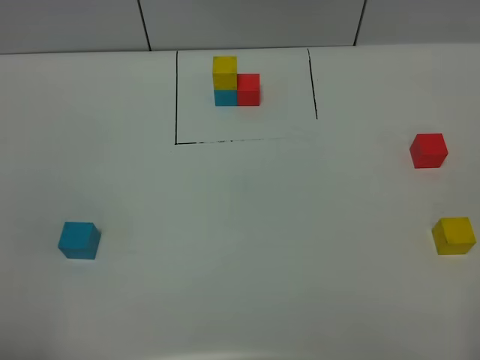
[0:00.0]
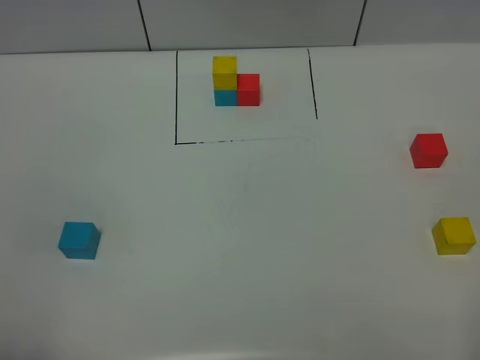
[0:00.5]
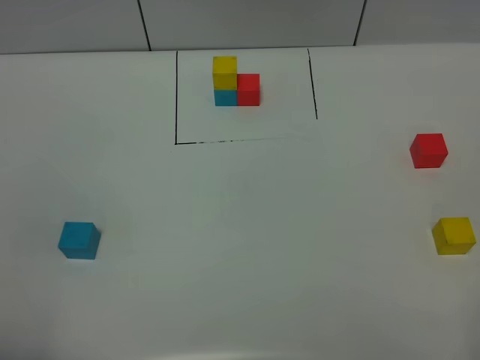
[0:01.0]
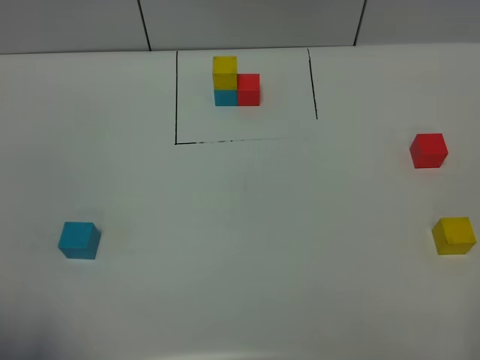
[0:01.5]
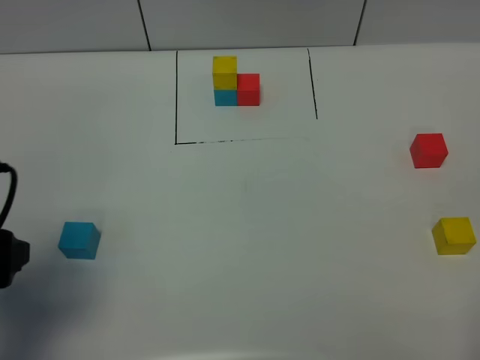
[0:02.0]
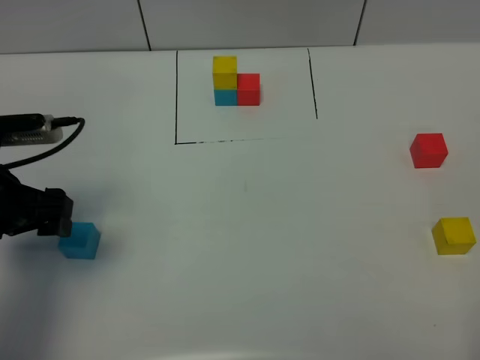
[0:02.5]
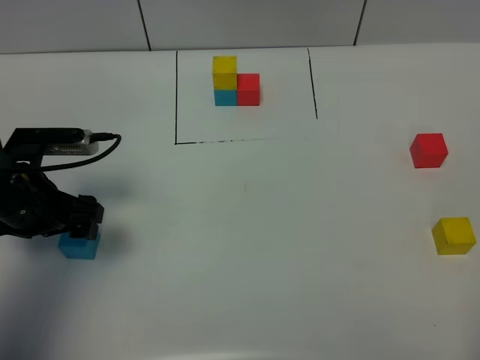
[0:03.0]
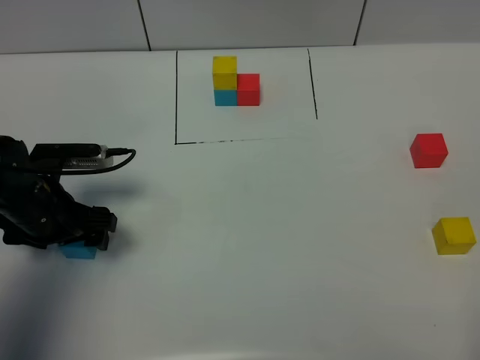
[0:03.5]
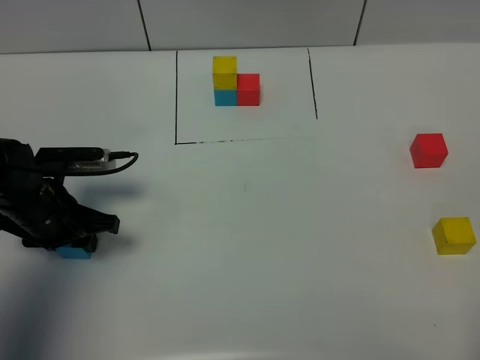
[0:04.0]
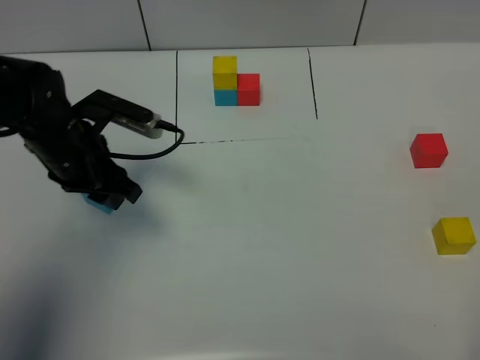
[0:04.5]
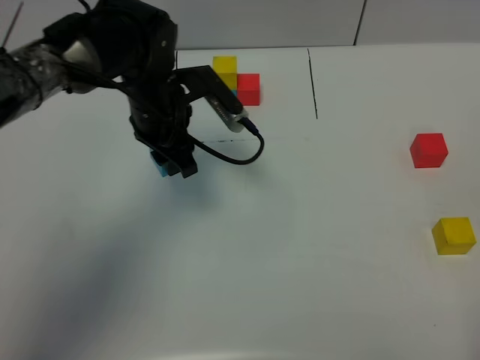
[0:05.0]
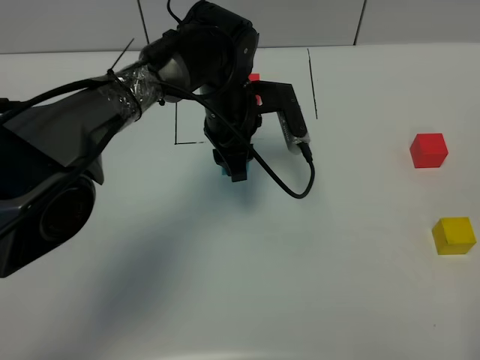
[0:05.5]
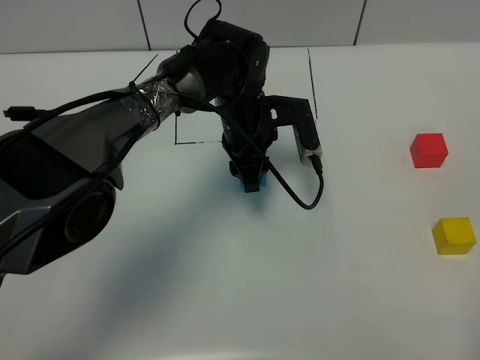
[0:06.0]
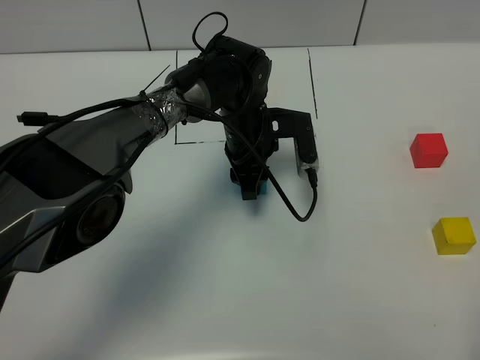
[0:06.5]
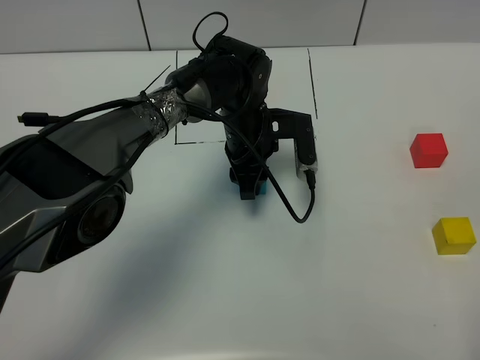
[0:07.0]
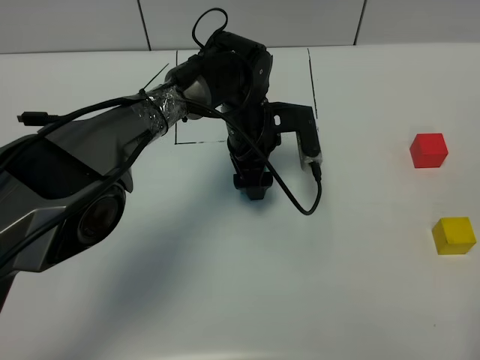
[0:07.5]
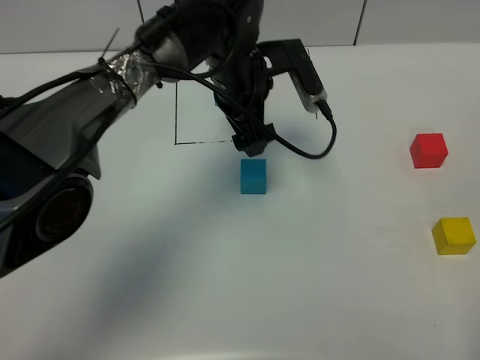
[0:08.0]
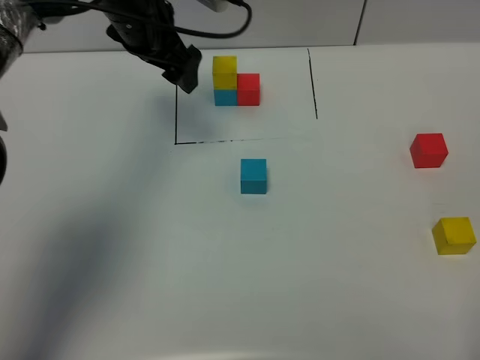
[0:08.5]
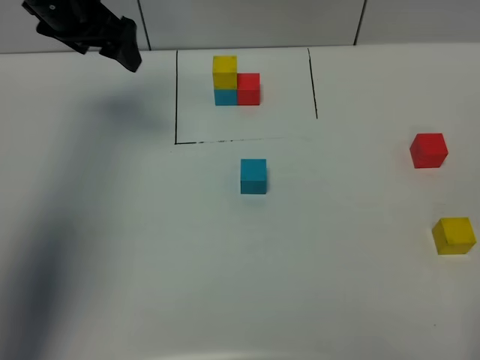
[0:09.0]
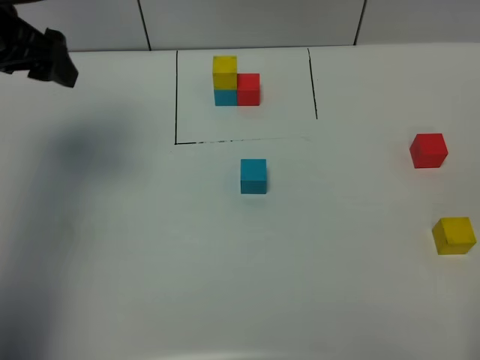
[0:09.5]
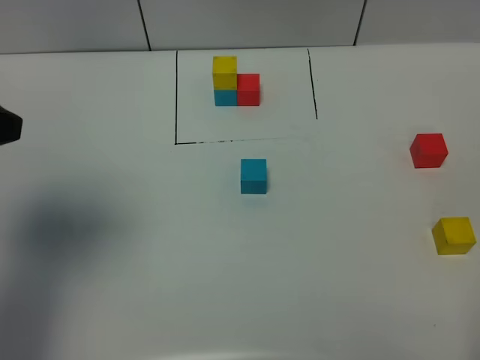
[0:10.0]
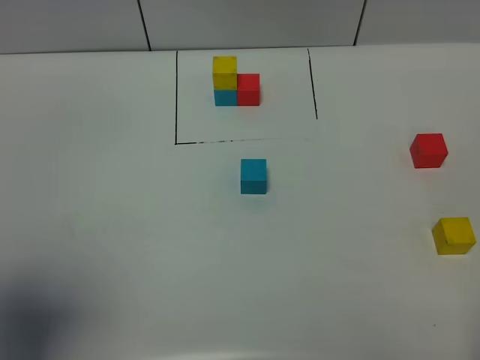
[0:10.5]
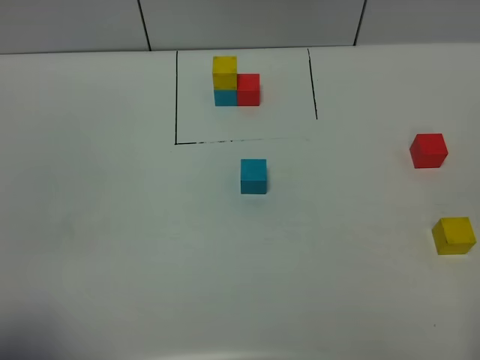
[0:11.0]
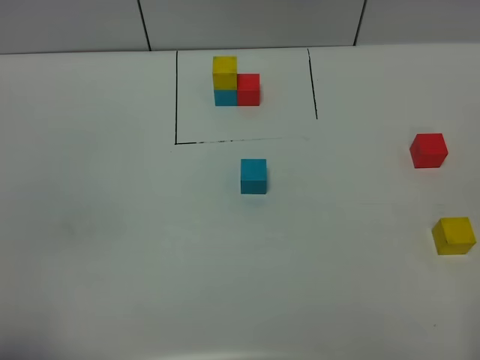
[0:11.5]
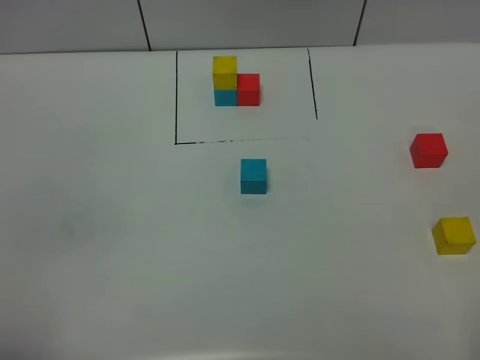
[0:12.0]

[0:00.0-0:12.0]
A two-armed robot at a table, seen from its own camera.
Task of the whole recording: According to the building block template in front, assemble the scattered blocks together.
Step, 0:00.0 to 0:07.5: Put the blue build block in the center of the table.
0:00.0 to 0:02.0: The left gripper heads forward, covering about 15 cm.
0:02.0 to 0:04.0: The left gripper heads downward and forward, covering approximately 20 cm, and closes up.
0:04.0 to 0:06.0: The left gripper moves to the right and forward, approximately 30 cm.
0:06.0 to 0:08.0: The left gripper heads upward, covering about 5 cm, and opens.
0:08.0 to 0:10.0: The left gripper goes some 35 cm to the left, backward and upward.
0:10.0 to 0:12.0: The left gripper travels backward by roughly 20 cm.

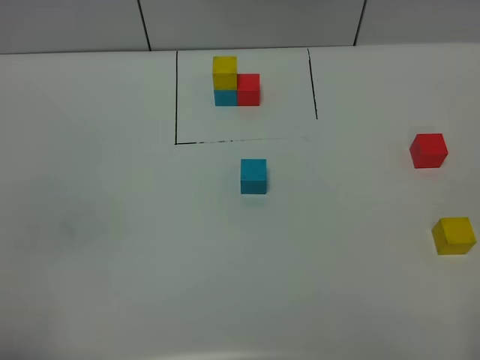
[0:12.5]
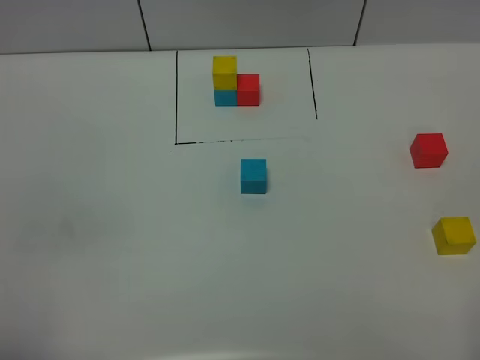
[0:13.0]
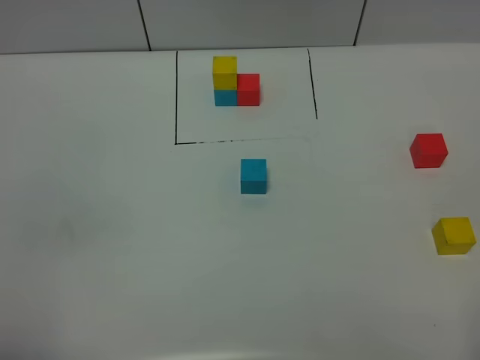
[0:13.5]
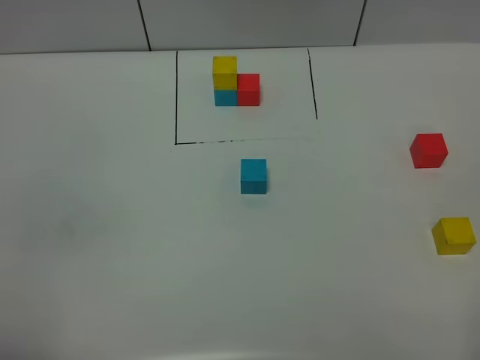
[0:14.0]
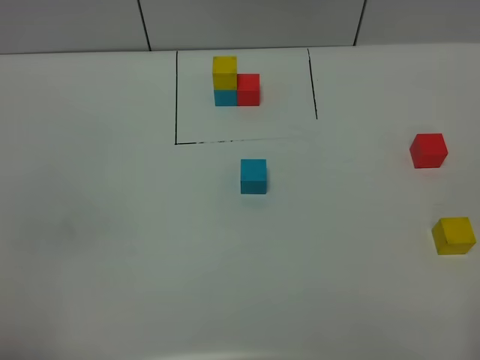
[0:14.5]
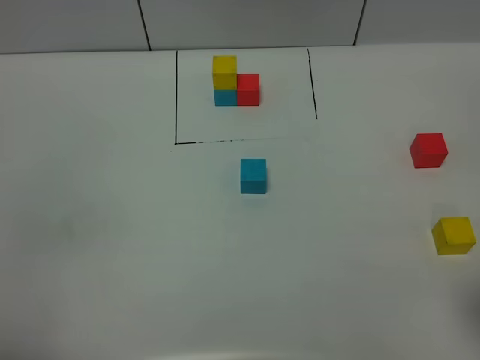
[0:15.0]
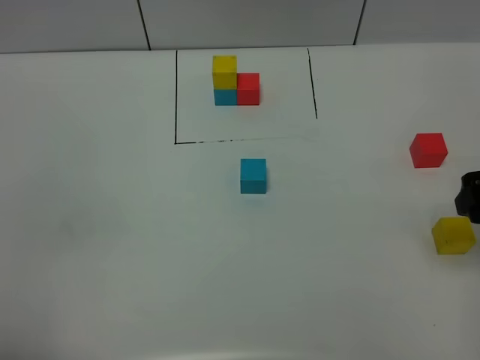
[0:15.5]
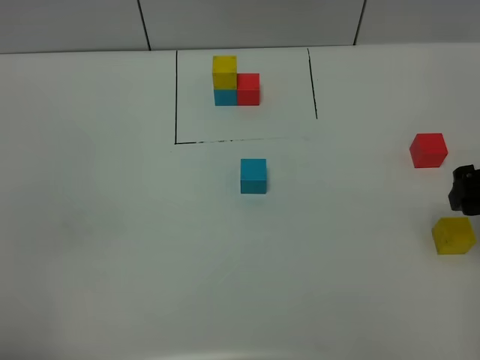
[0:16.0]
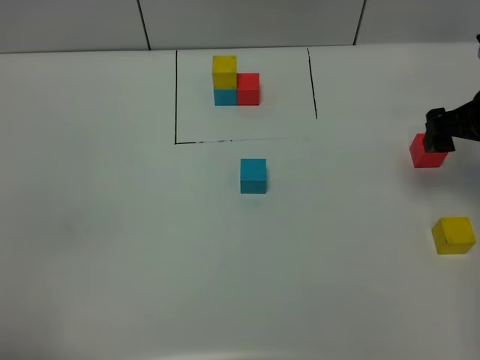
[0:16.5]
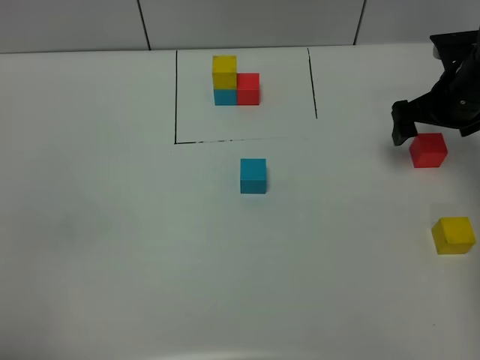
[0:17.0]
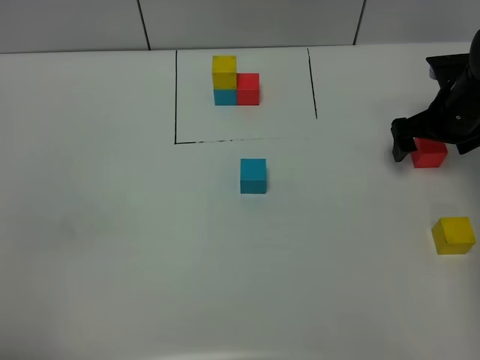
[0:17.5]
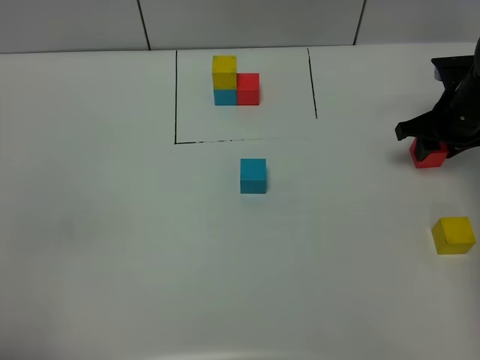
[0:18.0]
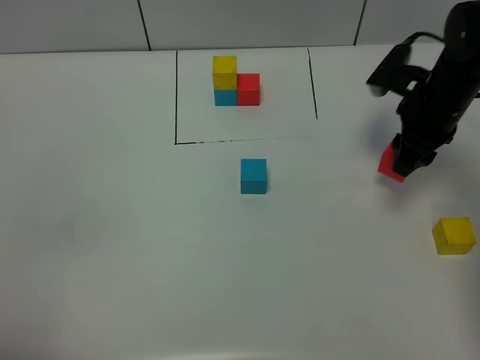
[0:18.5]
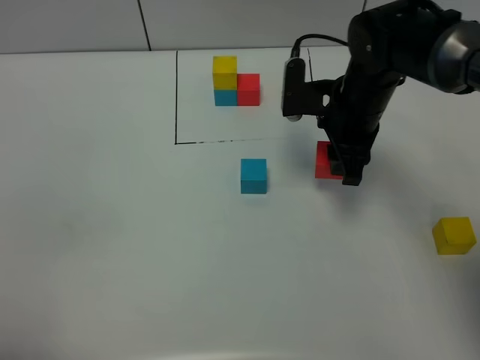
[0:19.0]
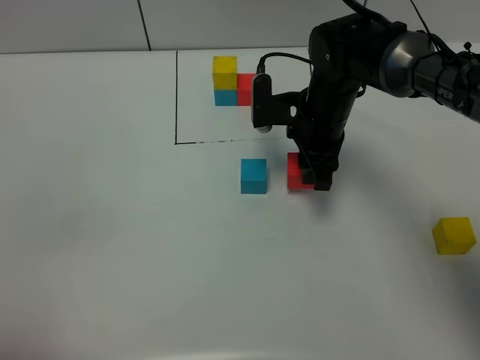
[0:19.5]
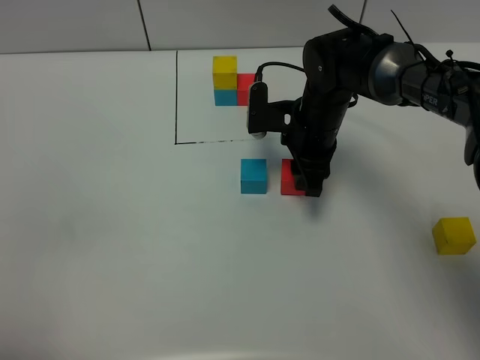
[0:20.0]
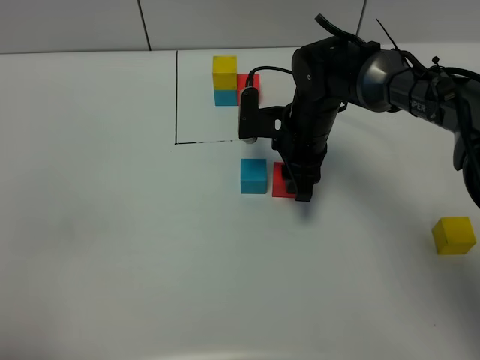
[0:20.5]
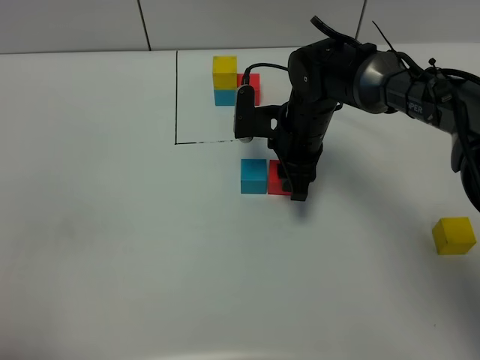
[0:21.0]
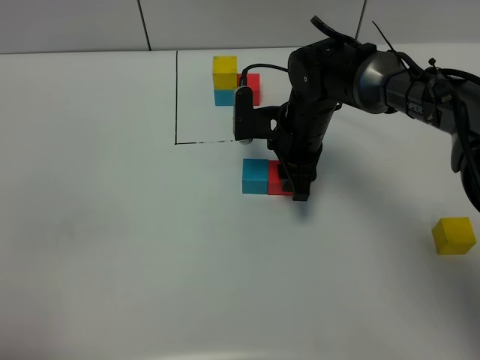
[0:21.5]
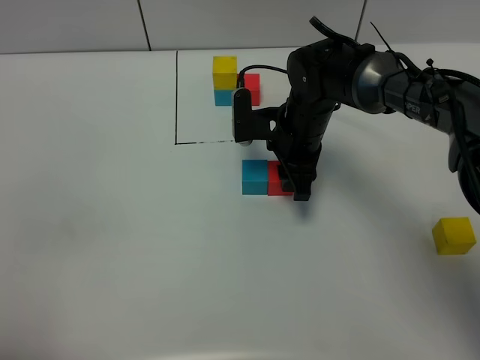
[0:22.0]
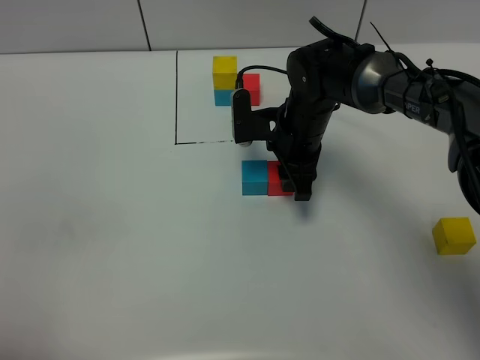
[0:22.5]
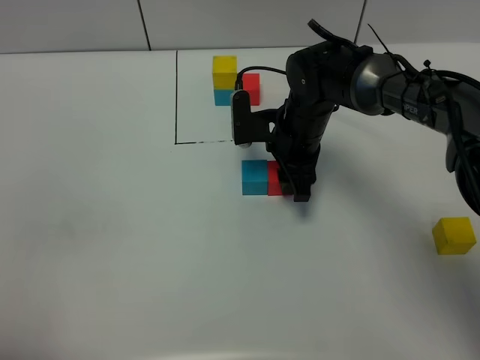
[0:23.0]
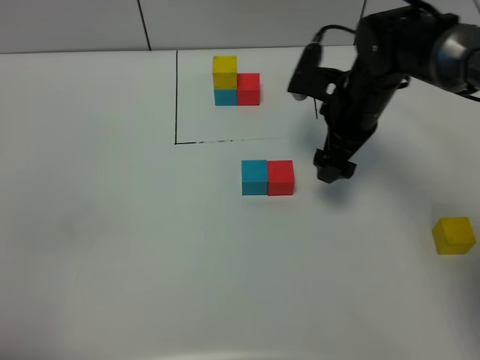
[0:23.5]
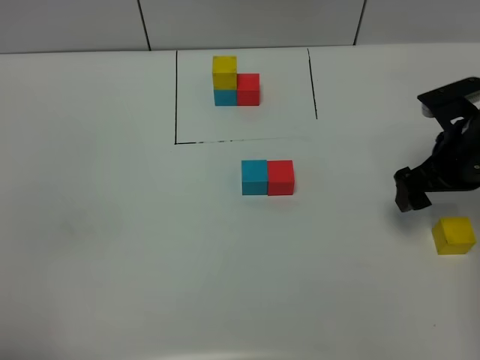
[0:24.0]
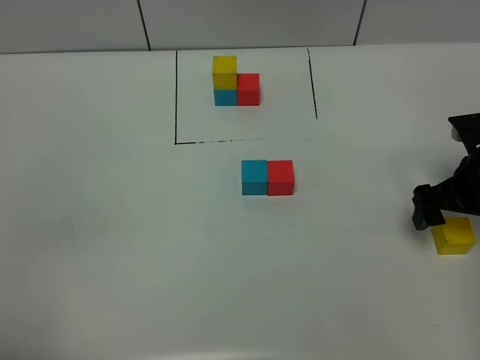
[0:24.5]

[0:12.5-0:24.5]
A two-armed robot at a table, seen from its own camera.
Task of the whole recording: According to the building block template in front, assemble the scattered blocks together.
Step, 0:12.5 to 0:23.0: Put the red build block on the right of the blue build block.
0:12.5 to 0:14.5: Both grippers stay put.
0:14.5 to 0:16.5: The right gripper travels forward by some 35 cm.
0:16.5 to 0:18.5: The right gripper shifts about 5 cm to the left, and closes.
0:18.5 to 0:20.5: The right gripper heads to the left, covering about 15 cm.
0:20.5 to 0:22.5: The grippers make only small movements.
0:22.5 to 0:24.5: The right gripper goes approximately 25 cm to the right and backward, and opens.

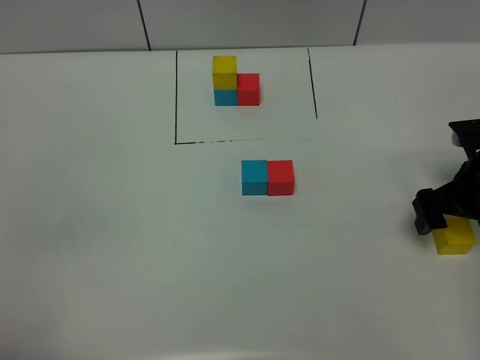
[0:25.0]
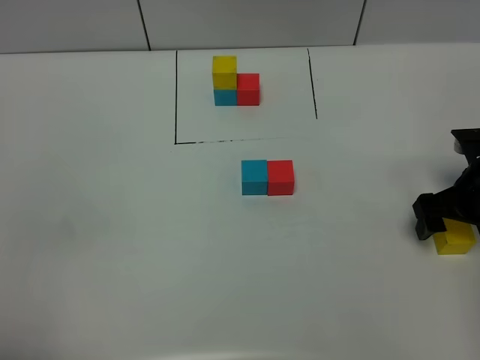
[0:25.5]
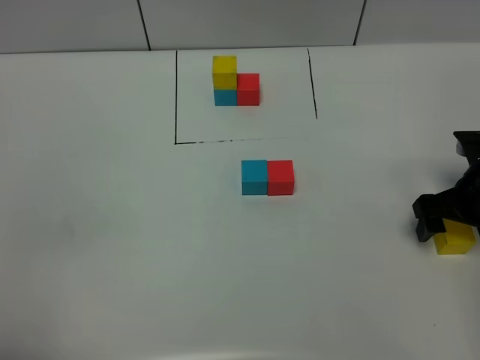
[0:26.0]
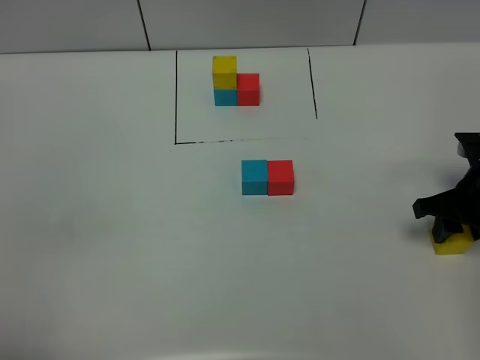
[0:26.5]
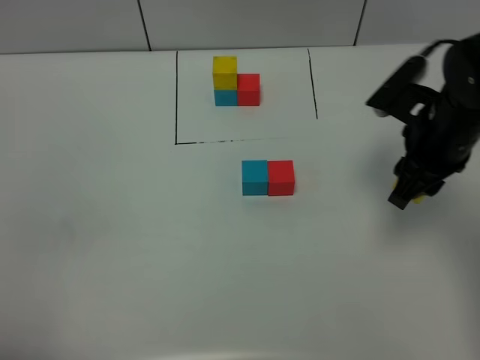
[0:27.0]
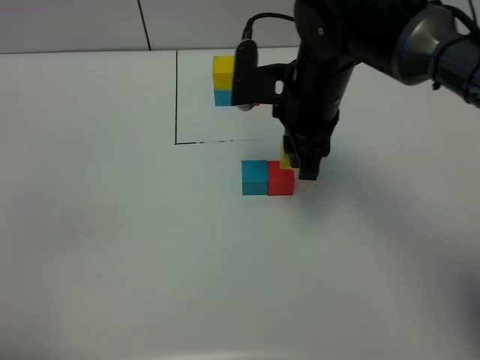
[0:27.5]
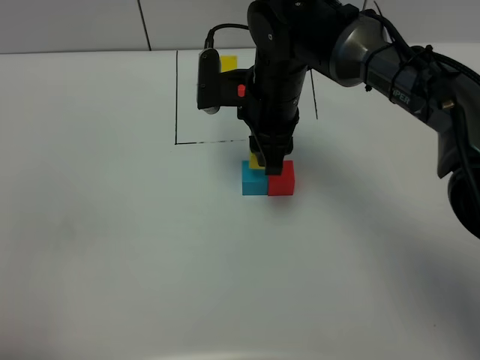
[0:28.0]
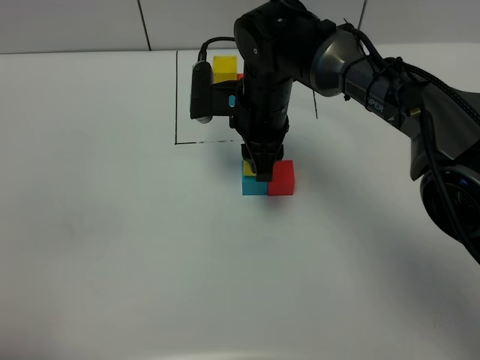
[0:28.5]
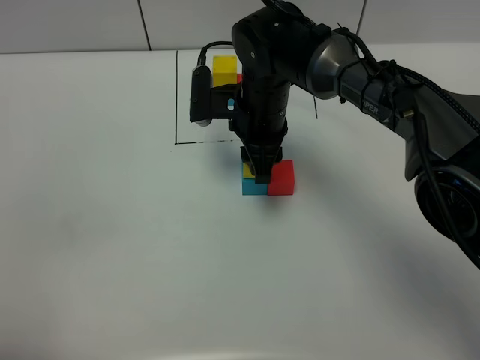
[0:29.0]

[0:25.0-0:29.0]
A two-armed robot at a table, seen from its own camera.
Task of the whole recording: According to the building block template in front, assemble the scattered blocks together.
0:25.0 to 0:27.0: The right gripper goes roughly 15 cm to the left and upward, and closes up.
0:27.0 to 0:29.0: The right gripper moves to the left and forward, about 20 cm.
